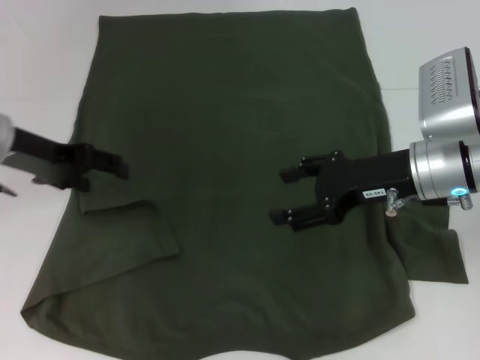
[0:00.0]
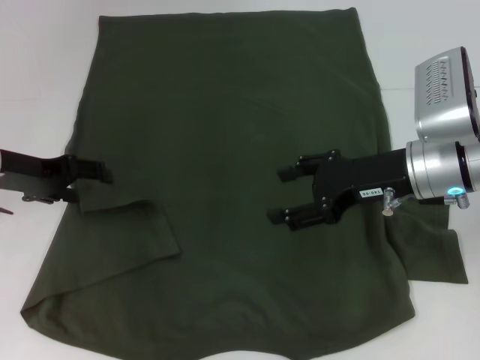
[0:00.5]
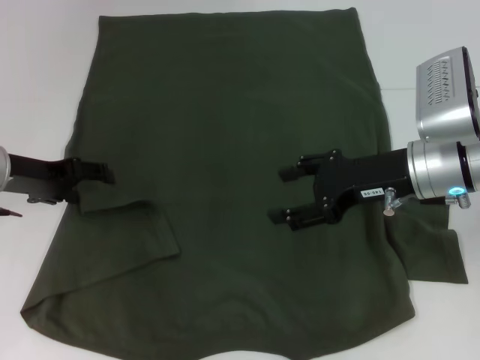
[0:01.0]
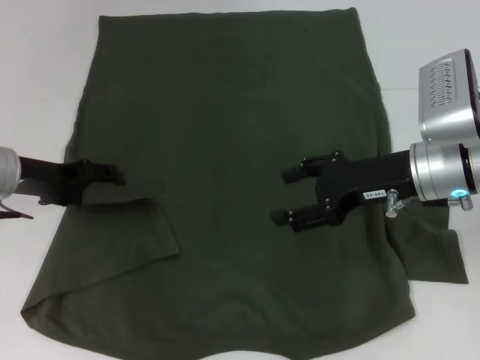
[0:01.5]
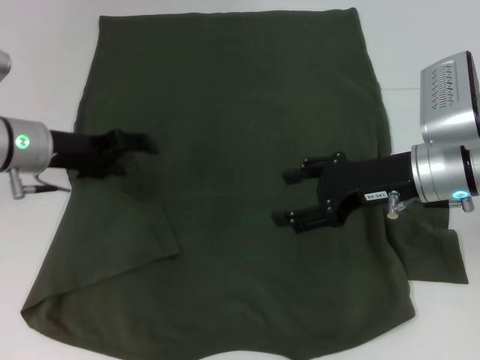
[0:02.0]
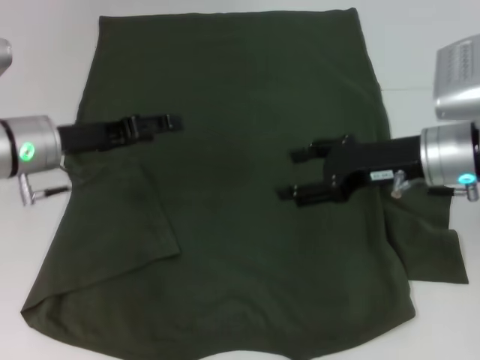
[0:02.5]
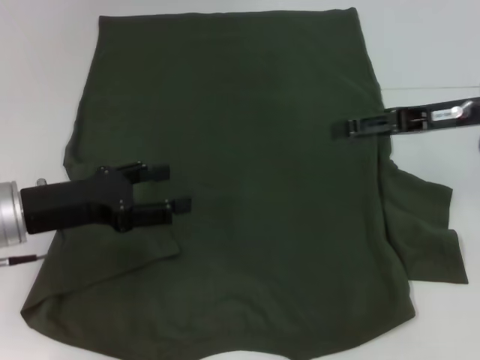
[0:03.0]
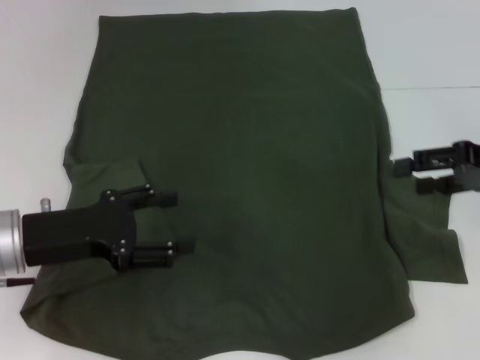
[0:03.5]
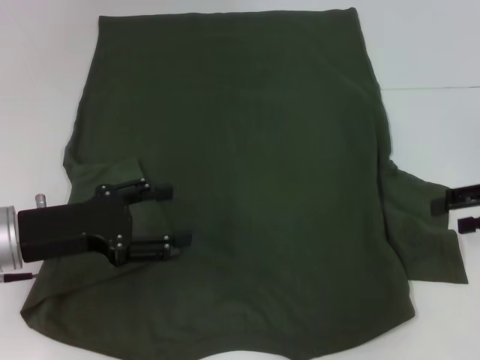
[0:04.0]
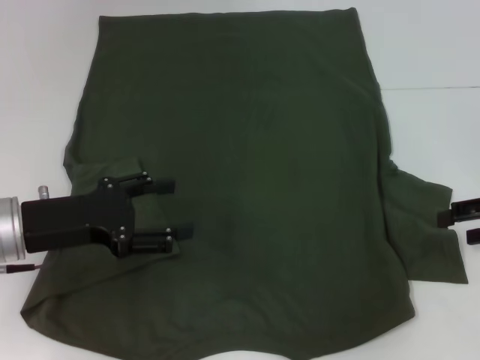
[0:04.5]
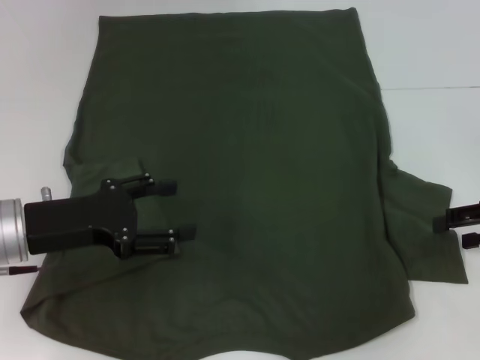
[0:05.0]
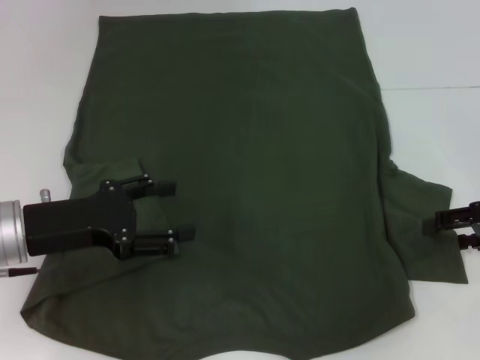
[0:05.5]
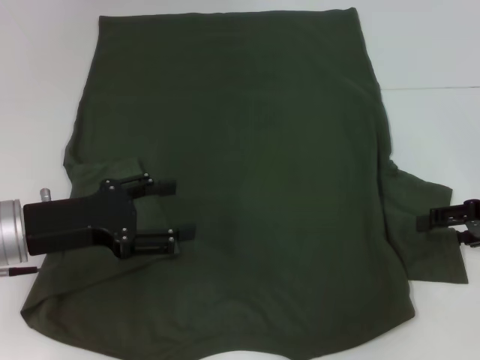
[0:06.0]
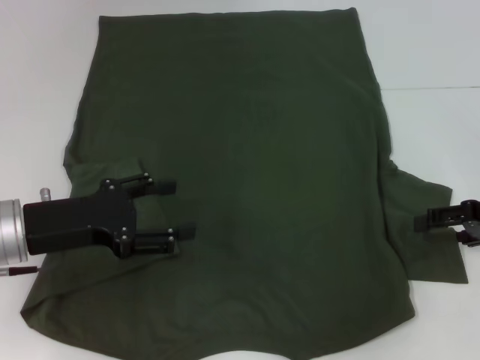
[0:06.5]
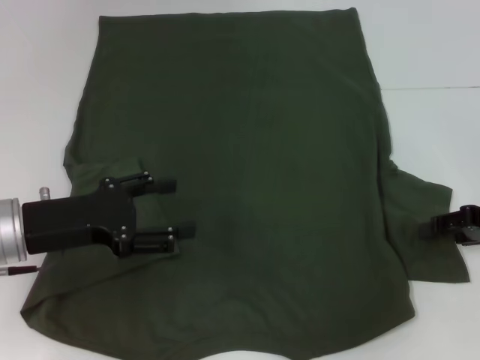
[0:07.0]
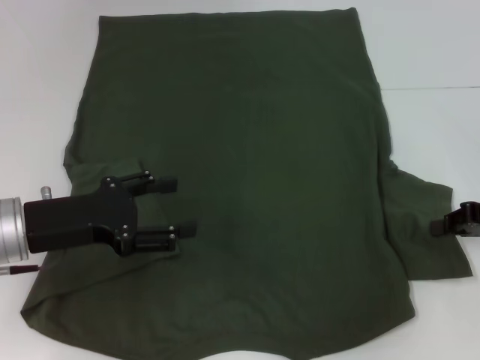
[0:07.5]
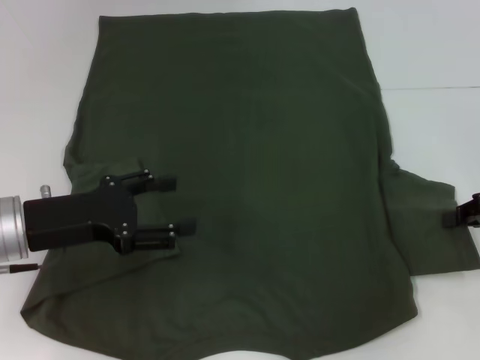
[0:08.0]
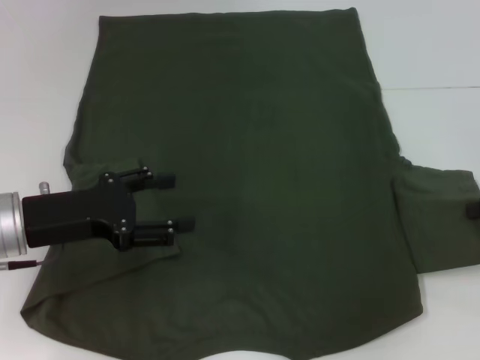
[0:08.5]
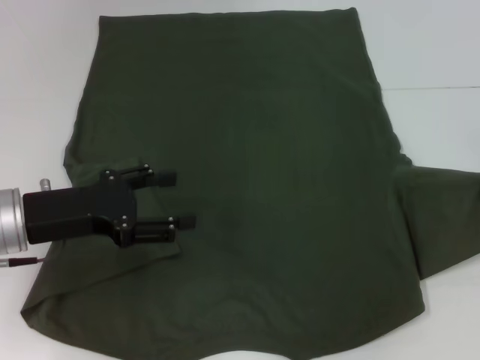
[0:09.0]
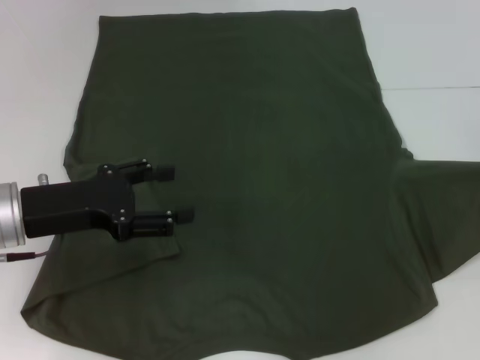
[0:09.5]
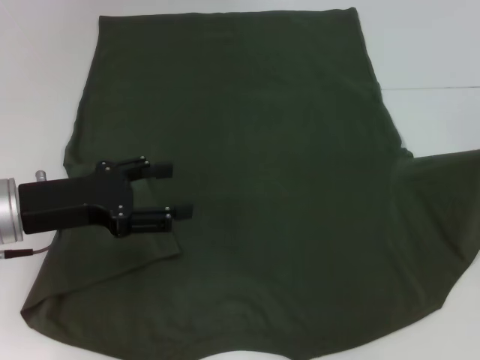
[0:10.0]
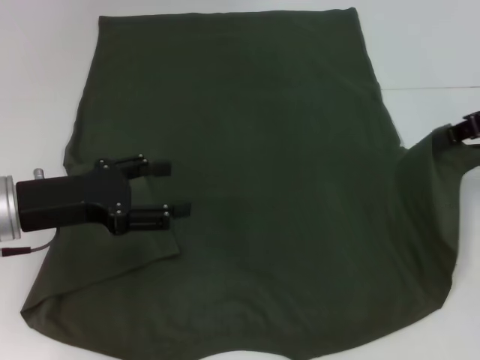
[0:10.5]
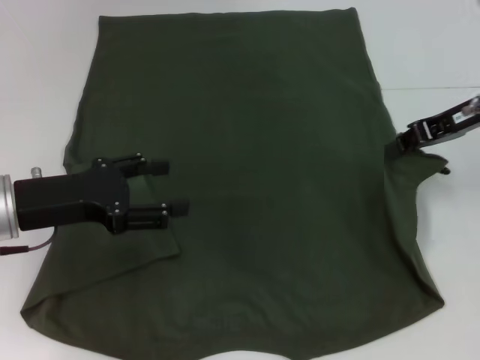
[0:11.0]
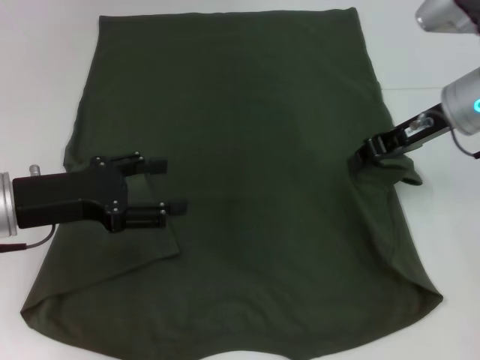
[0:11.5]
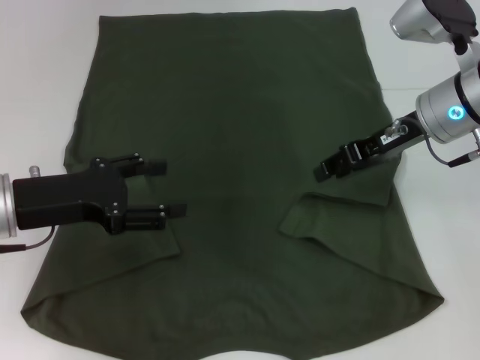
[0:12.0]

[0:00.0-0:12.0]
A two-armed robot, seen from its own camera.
0:00.0 to 0:02.0: The grippers stay close to where they were, moving slightly.
0:02.0 to 0:04.0: The left gripper heads backward, covering roughly 10 cm. Meanwhile the right gripper goes roughly 15 cm to the right.
0:04.0 to 0:06.0: The grippers move only a little.
0:06.0 to 0:08.0: The right gripper closes its fingers.
0:08.0 to 0:10.0: The right gripper is displaced upward by some 10 cm.
0:10.0 to 0:12.0: The right gripper is displaced to the left by some 15 cm.

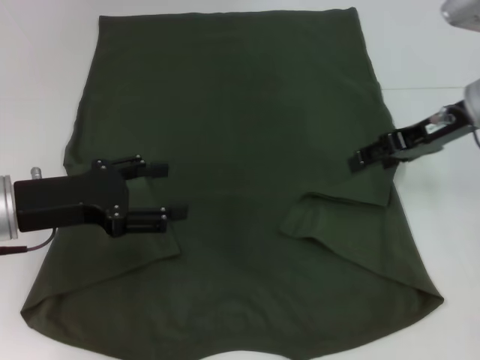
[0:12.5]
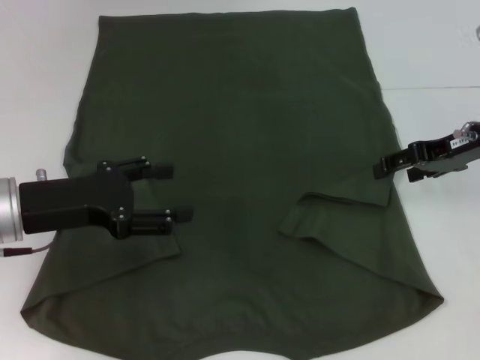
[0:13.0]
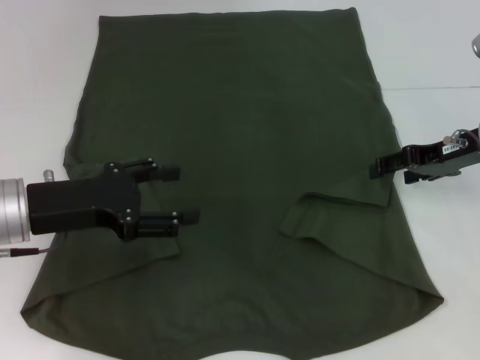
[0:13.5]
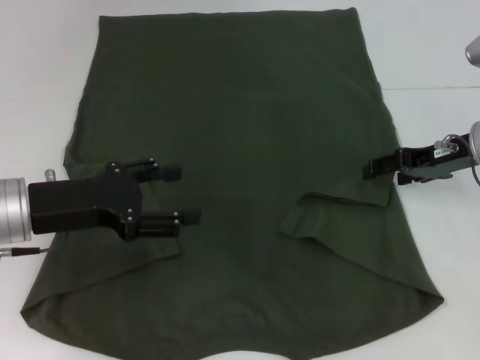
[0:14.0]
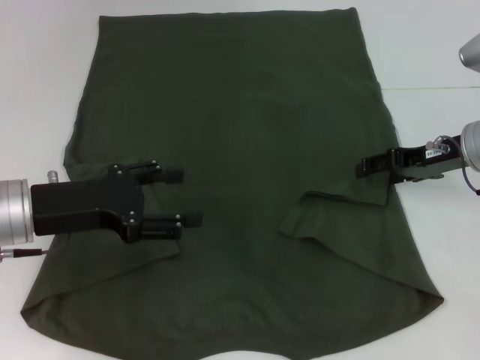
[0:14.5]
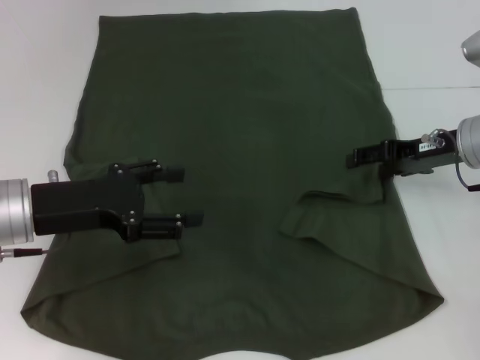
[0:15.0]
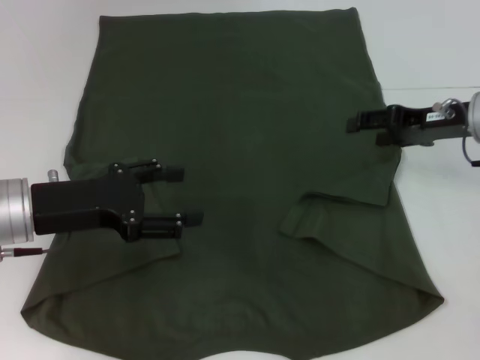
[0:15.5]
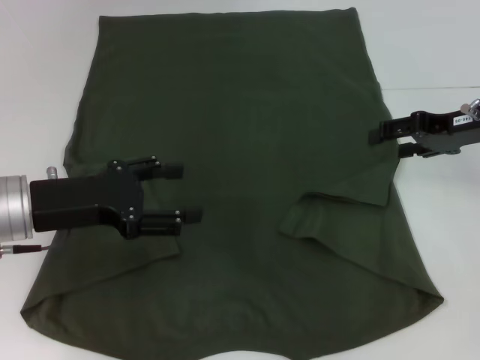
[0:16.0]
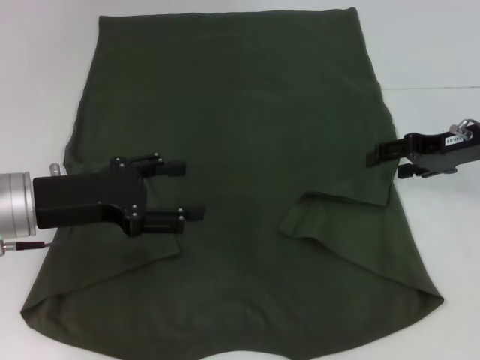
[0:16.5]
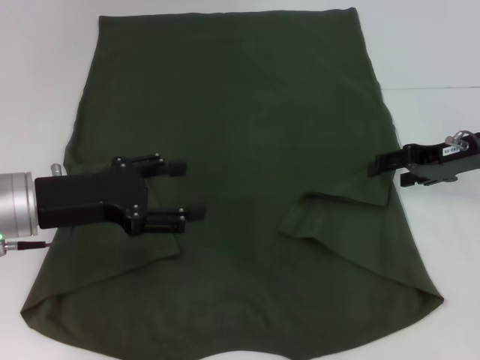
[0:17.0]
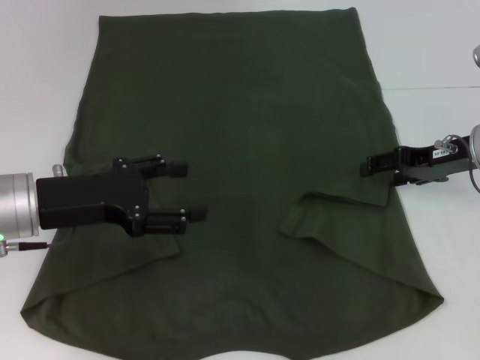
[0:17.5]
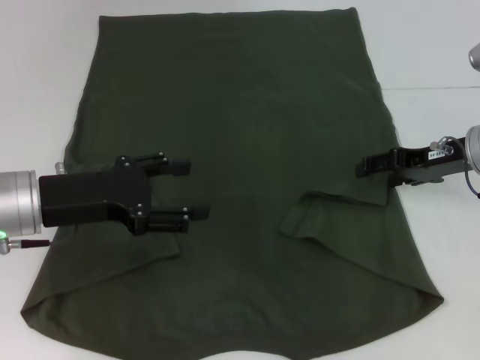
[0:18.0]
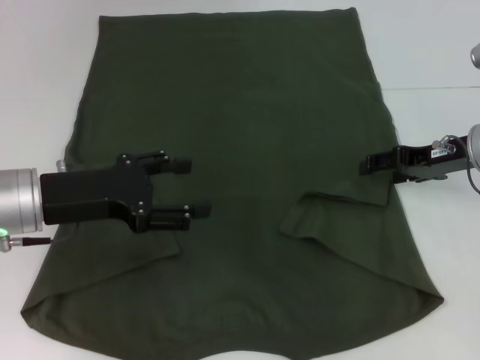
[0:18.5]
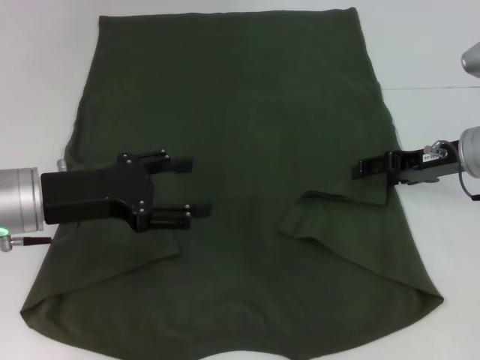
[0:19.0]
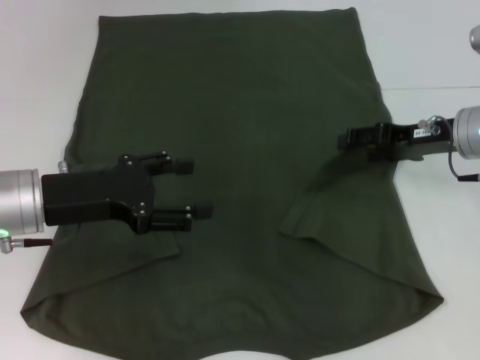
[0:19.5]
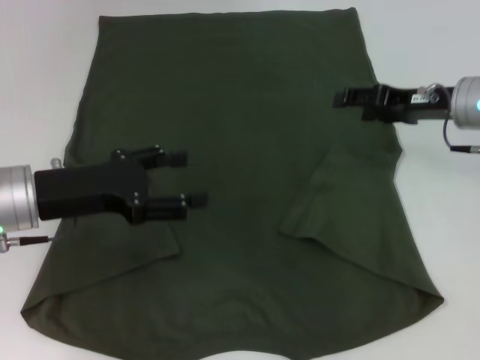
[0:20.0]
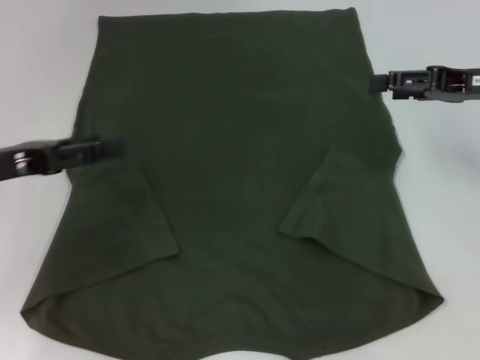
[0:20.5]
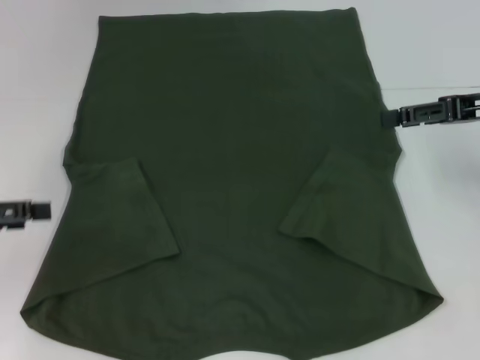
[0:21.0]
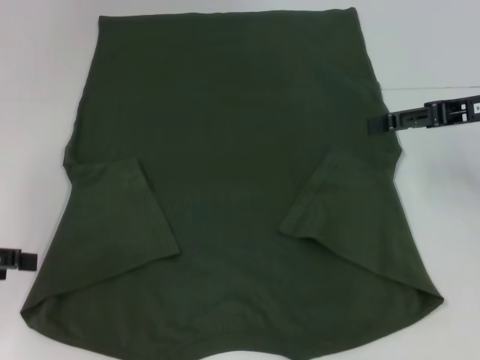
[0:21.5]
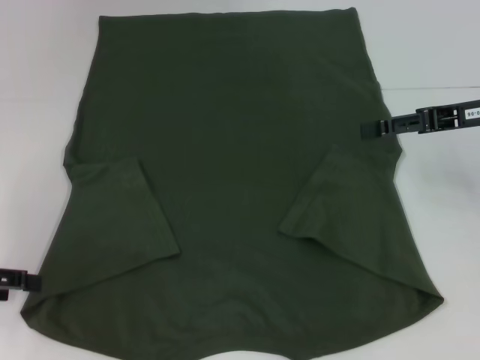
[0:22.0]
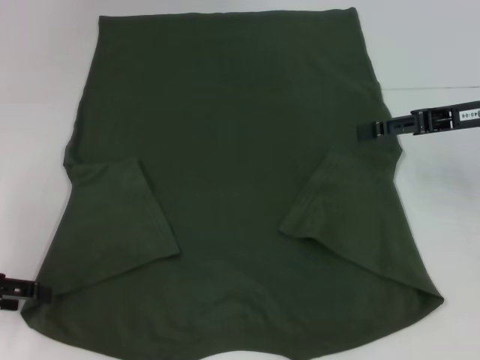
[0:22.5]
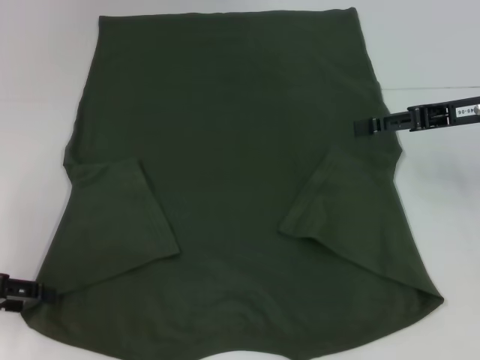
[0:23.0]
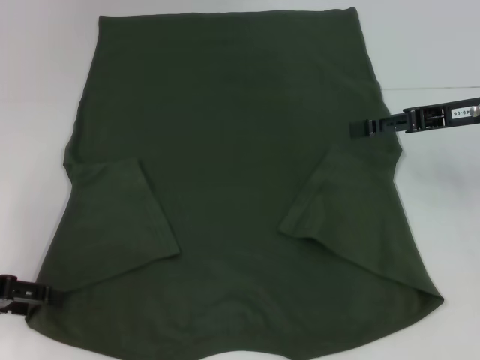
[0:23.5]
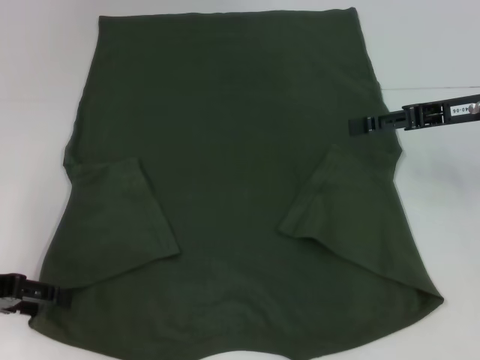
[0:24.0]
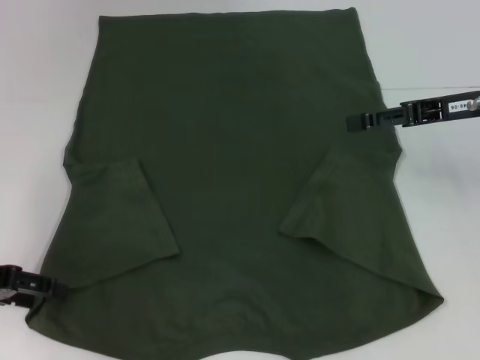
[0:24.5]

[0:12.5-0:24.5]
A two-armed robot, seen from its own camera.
0:12.5 to 0:14.5: The right gripper moves downward, about 5 cm.
0:14.5 to 0:18.5: The grippers make only small movements.
0:18.5 to 0:20.5: The right gripper shifts roughly 5 cm upward. Meanwhile the left gripper is displaced to the left by some 5 cm.
0:20.5 to 0:22.5: The left gripper goes roughly 5 cm to the left.
0:22.5 to 0:24.5: The grippers move only a little.

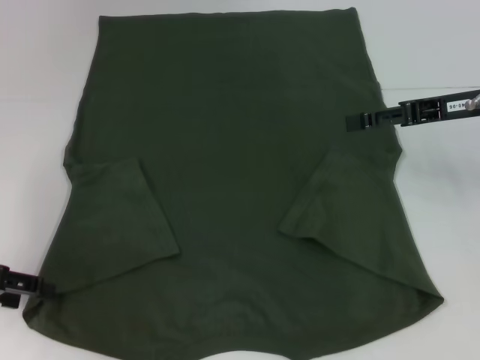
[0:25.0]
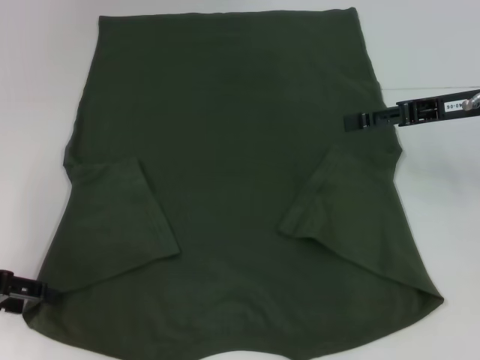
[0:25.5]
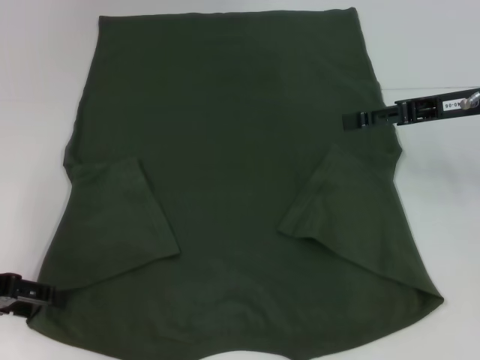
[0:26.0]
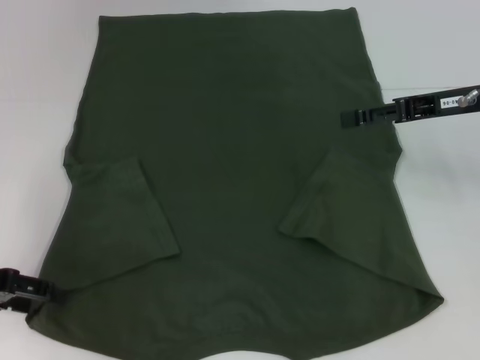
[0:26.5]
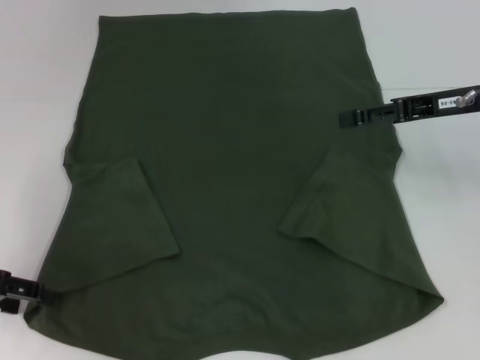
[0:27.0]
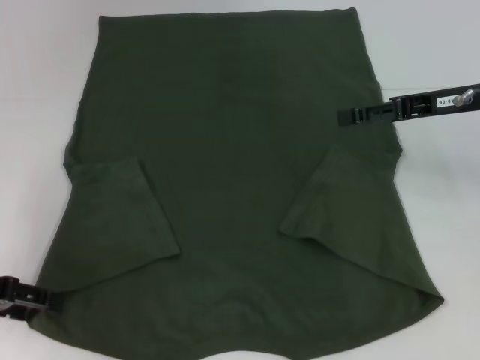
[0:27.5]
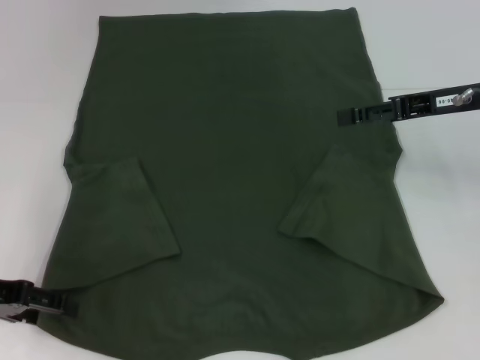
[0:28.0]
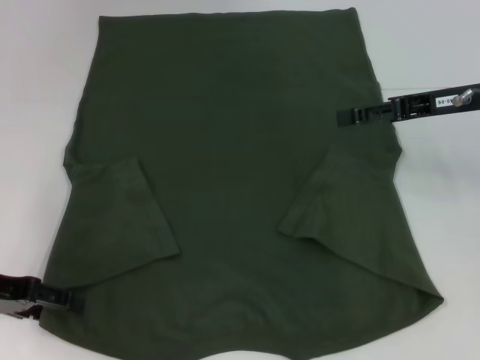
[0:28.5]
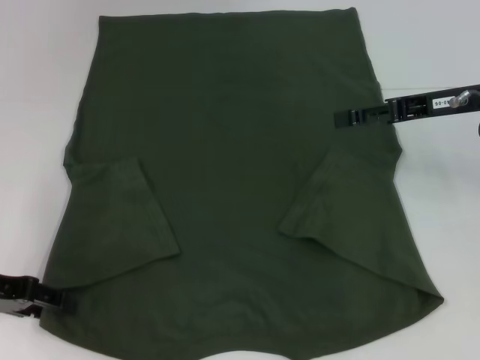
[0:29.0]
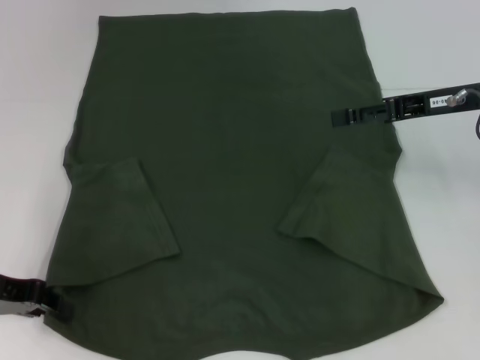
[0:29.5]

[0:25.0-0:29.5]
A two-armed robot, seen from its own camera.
Step, 0:25.0 to 0:28.5: Grab the bottom left corner with your left hand.
0:25.0 to 0:27.0: The grippers stay close to where they were, moving slightly.
0:27.0 to 0:29.5: The left gripper closes.
